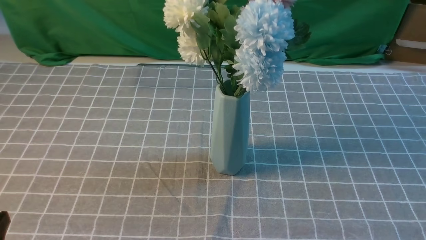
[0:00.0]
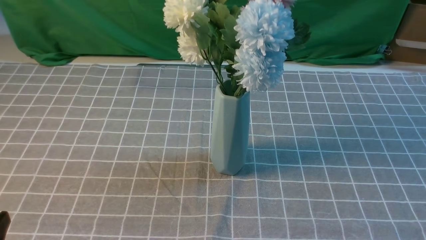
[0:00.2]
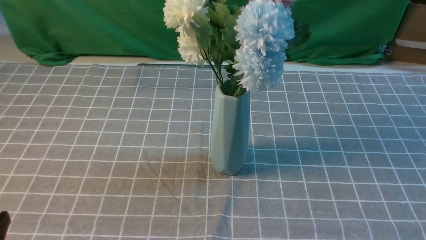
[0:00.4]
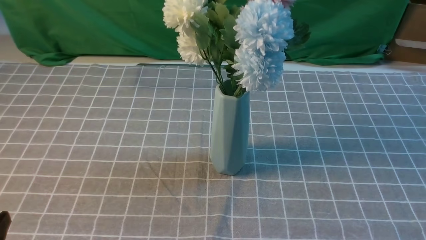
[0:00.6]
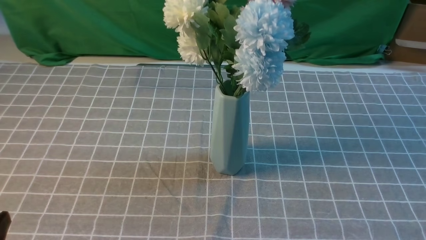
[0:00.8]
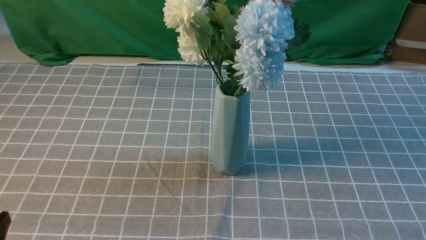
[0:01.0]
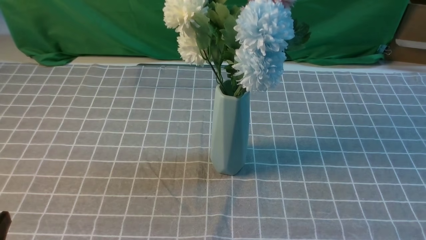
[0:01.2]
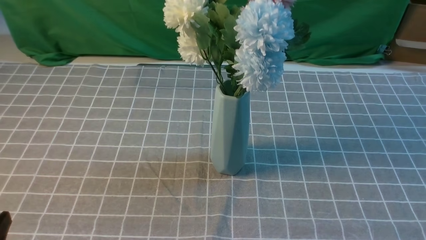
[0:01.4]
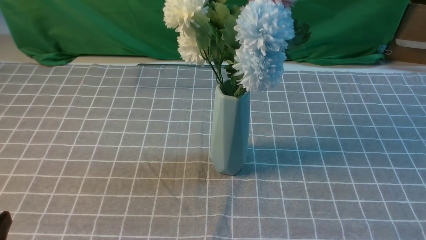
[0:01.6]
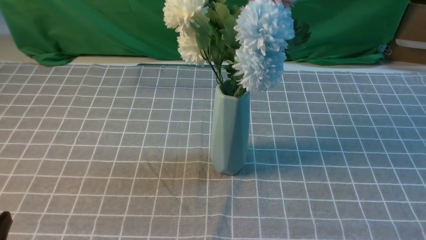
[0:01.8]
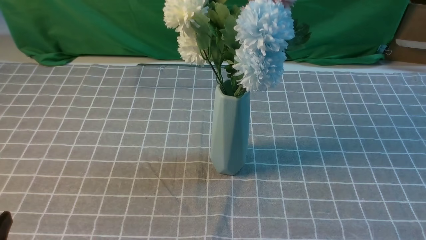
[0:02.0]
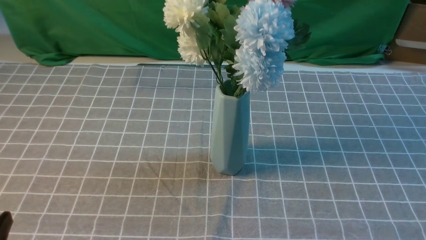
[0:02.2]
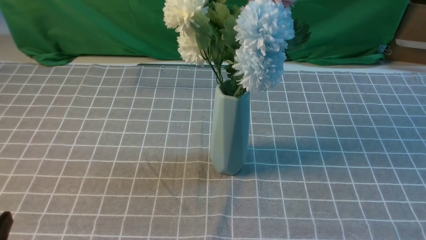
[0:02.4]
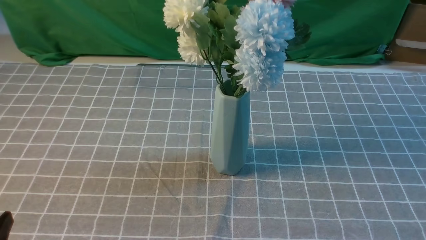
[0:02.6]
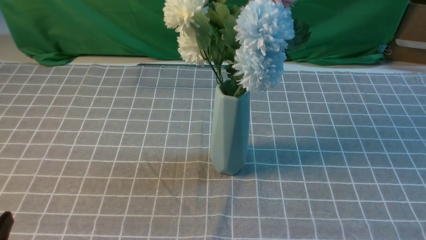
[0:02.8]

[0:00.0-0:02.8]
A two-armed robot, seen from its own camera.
Task of the whole recording: insert the flowers into the vase on the table with the grey tablecloth.
0:01.4 to 0:02.8: The two grippers keep their place.
